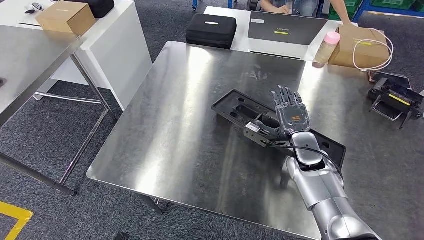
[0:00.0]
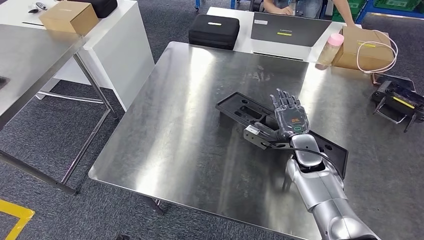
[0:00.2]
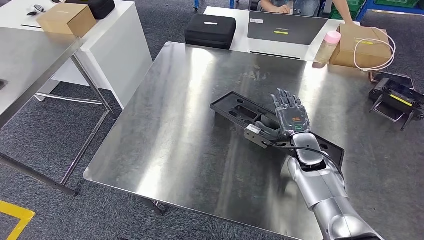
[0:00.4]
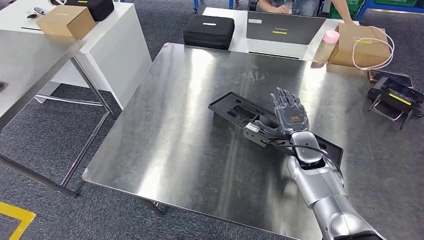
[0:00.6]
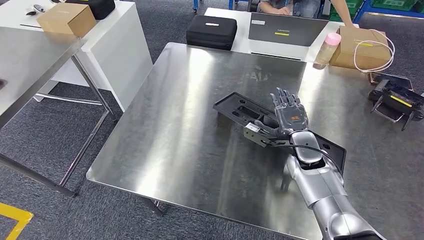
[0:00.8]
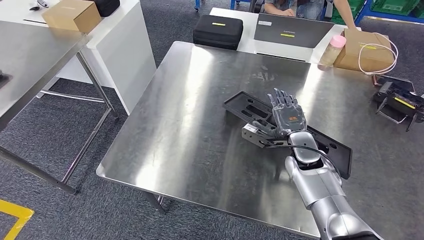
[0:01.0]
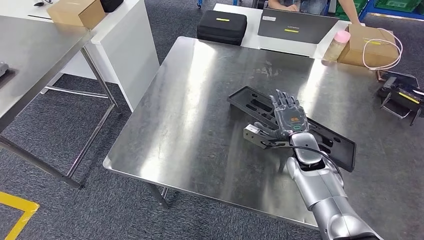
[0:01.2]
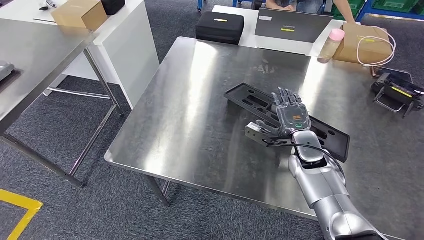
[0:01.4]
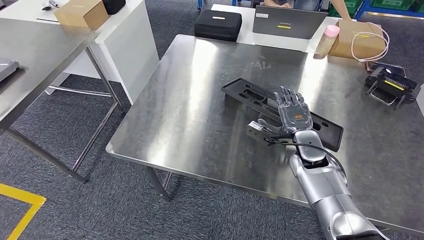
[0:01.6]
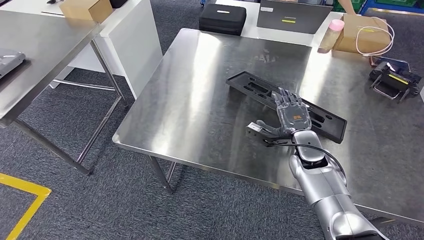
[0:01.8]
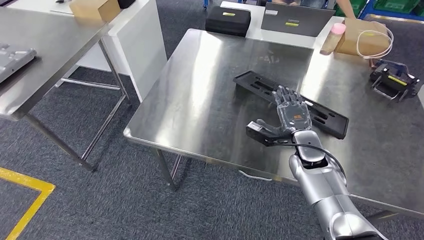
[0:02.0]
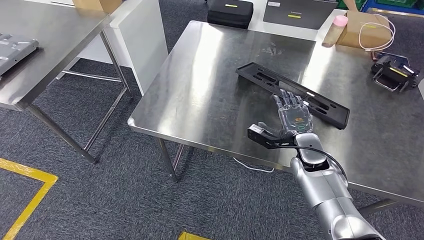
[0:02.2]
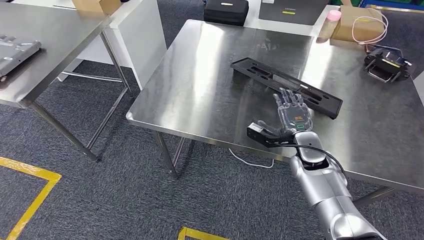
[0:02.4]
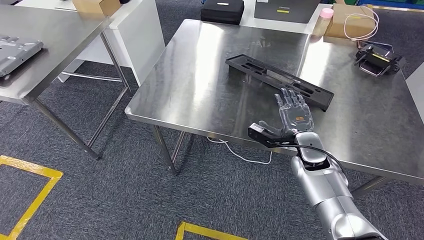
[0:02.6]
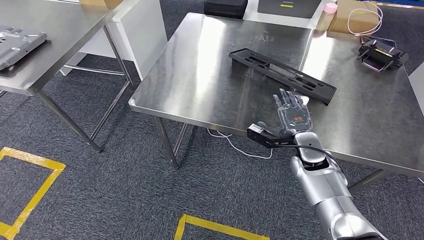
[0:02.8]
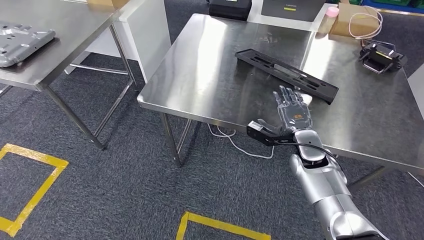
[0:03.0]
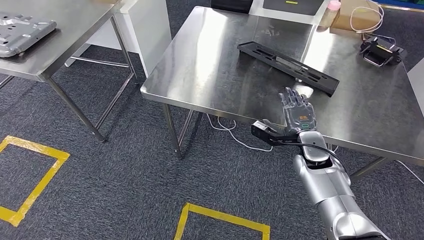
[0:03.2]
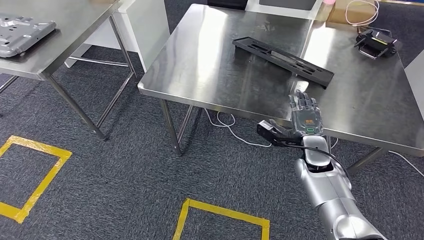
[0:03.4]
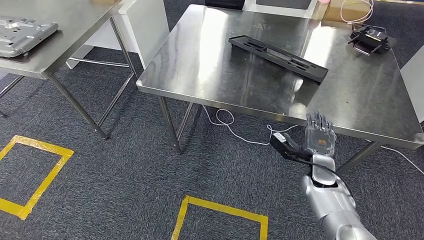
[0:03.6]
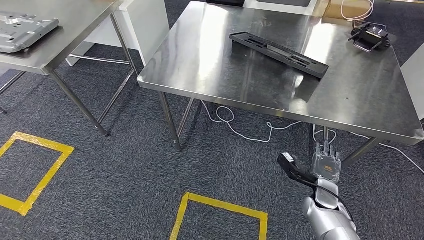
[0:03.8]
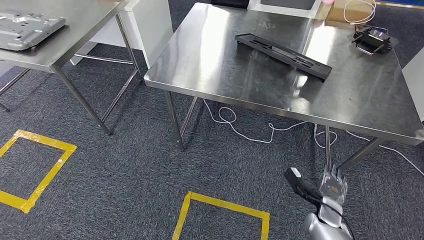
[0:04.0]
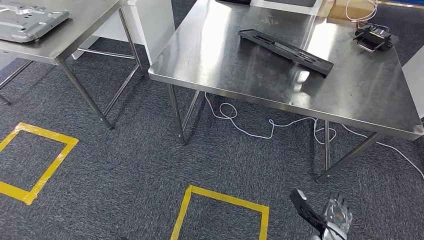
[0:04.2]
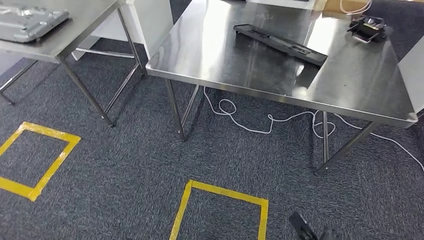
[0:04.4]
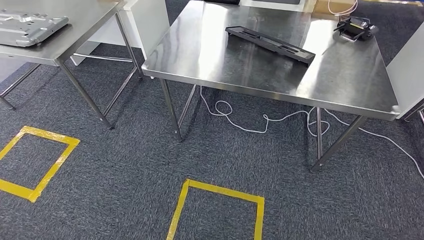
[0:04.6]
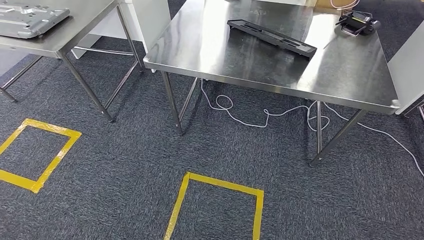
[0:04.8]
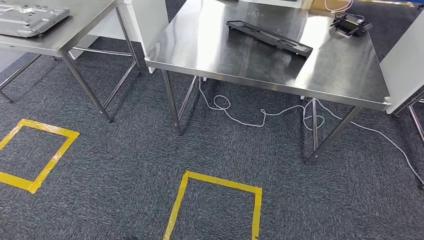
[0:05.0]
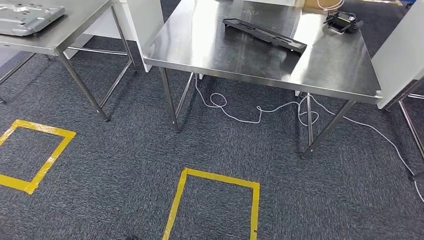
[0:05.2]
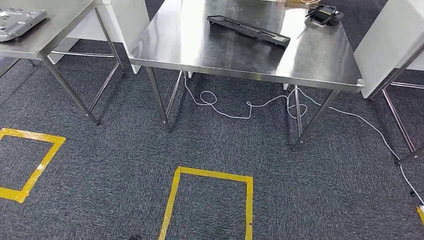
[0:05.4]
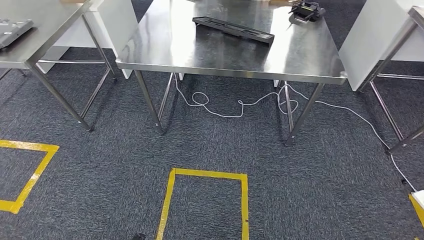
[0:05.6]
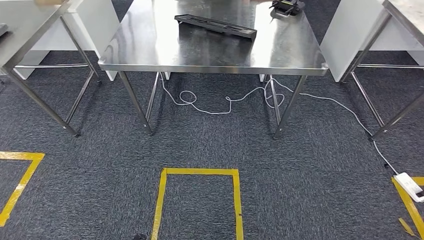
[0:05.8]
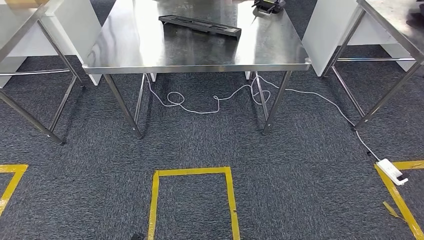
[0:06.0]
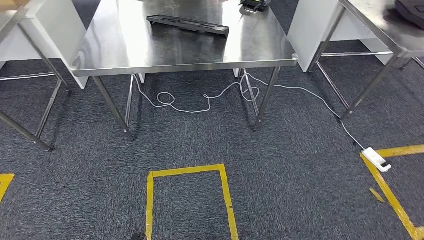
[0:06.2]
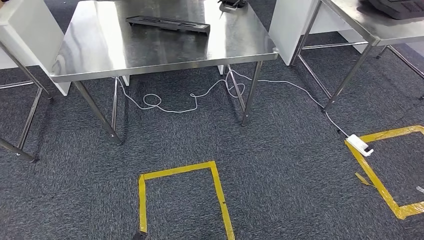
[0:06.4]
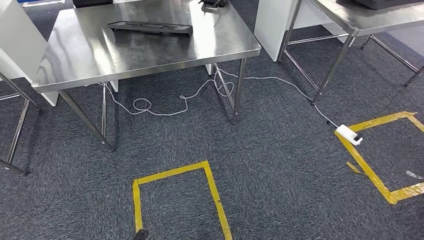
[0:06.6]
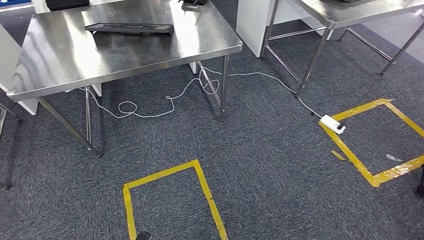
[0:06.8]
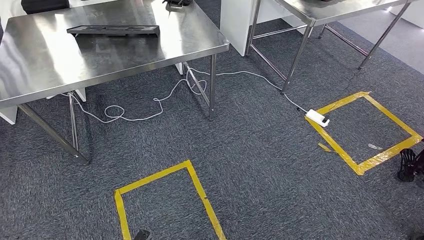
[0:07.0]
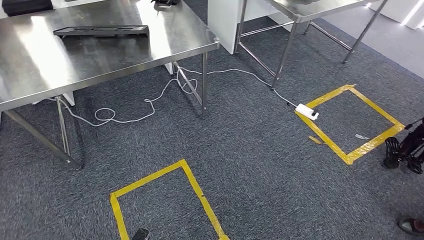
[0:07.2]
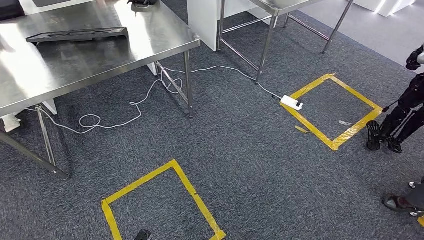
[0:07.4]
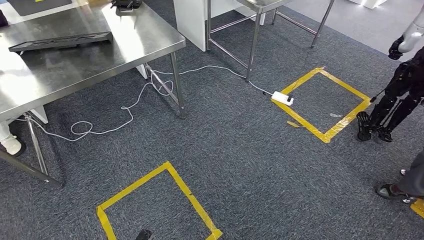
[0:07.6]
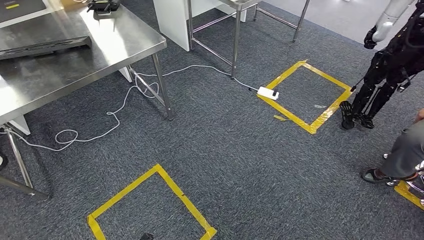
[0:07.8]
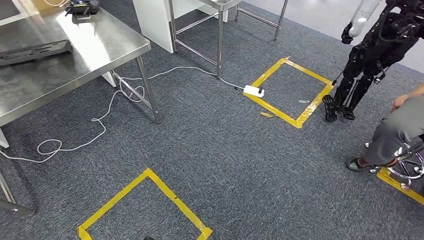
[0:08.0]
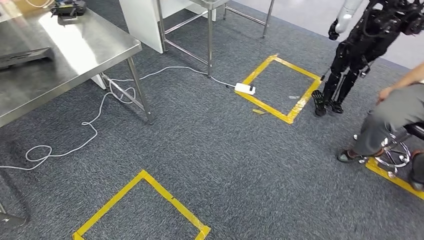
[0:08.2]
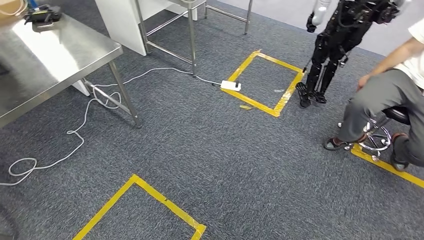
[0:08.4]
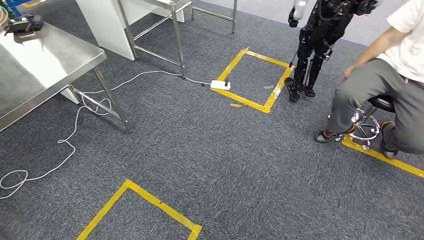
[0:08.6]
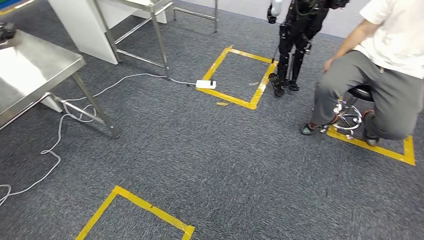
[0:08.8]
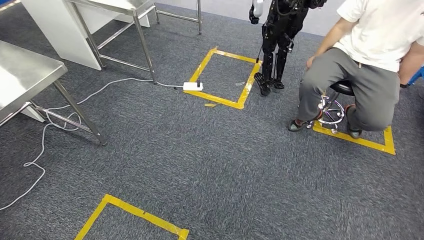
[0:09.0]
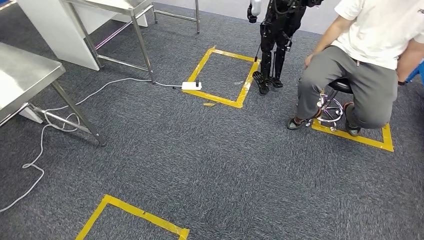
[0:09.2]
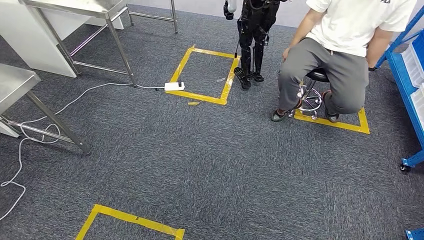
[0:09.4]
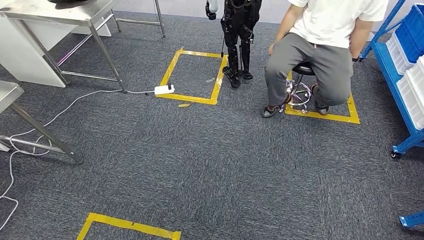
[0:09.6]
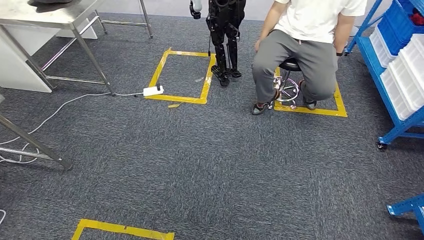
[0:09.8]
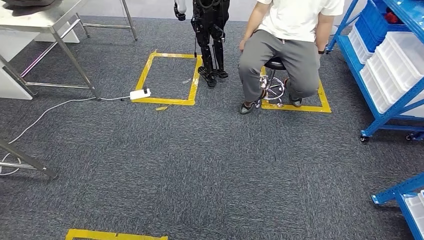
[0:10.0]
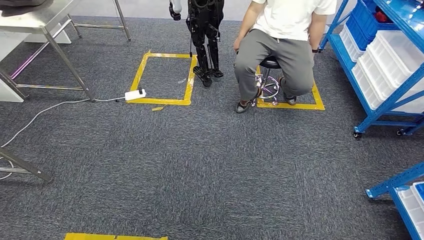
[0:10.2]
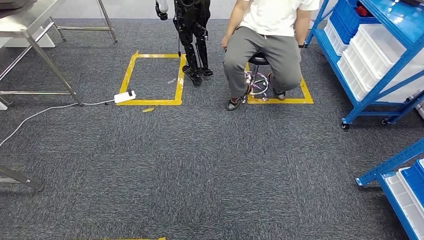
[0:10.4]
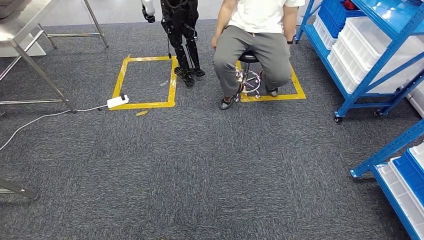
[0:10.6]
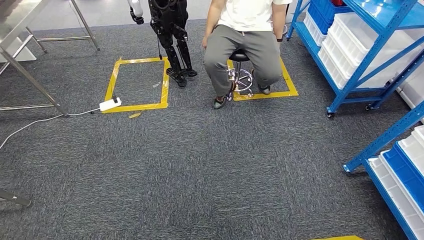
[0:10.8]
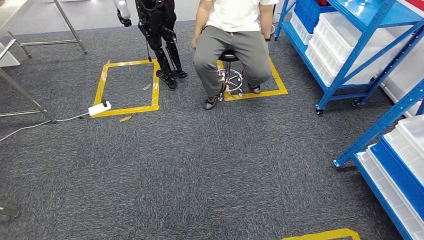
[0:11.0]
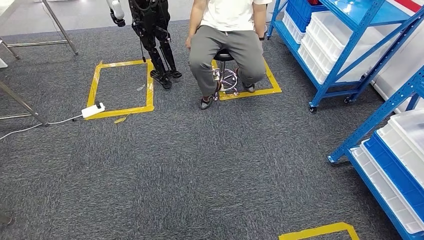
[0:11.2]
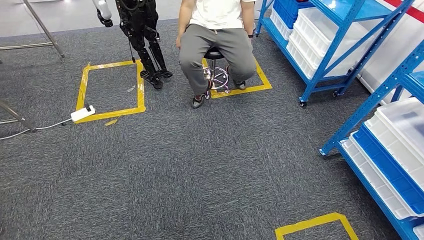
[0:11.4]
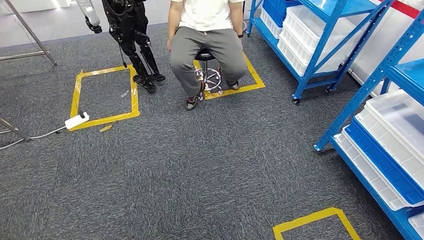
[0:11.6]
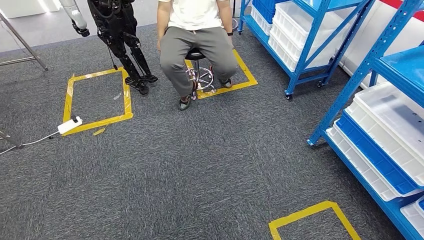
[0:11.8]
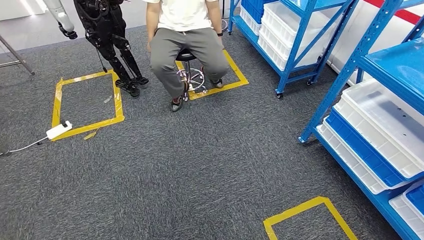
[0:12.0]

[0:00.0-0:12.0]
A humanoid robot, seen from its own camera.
Step, 0:00.0 to 0:03.4: Insert the large material into the corresponding hole on the workbench.

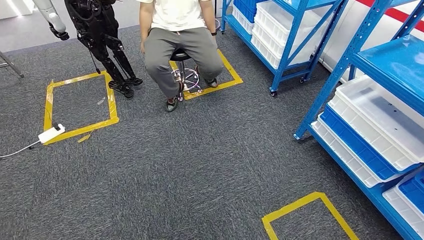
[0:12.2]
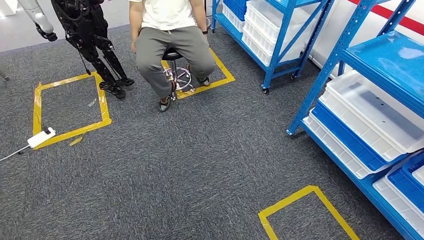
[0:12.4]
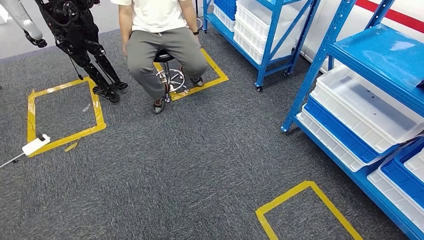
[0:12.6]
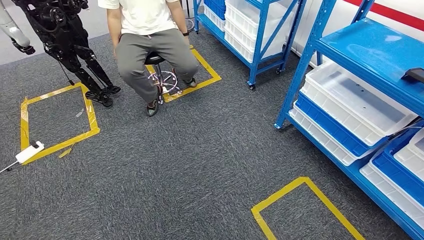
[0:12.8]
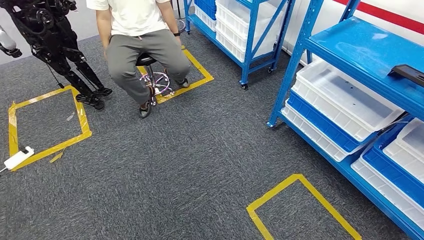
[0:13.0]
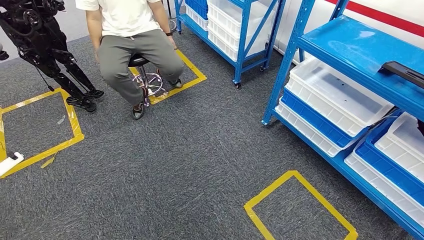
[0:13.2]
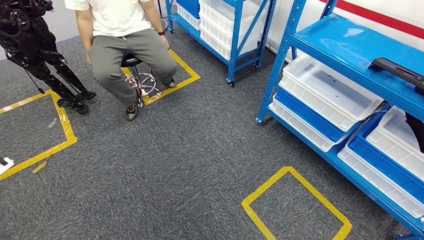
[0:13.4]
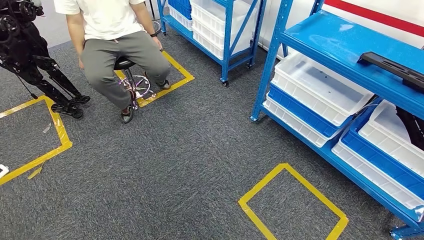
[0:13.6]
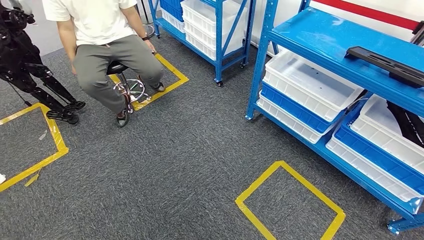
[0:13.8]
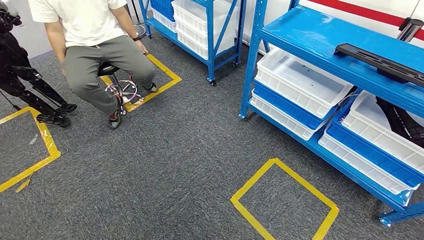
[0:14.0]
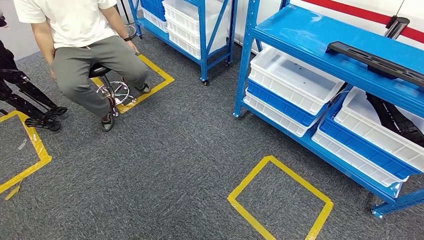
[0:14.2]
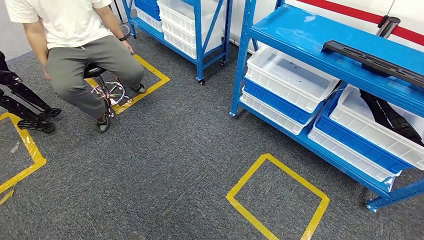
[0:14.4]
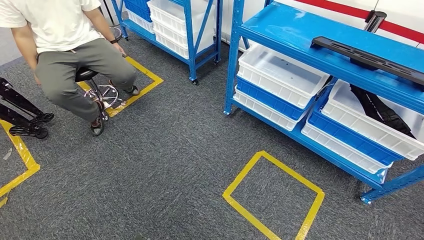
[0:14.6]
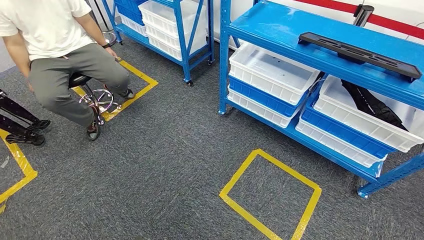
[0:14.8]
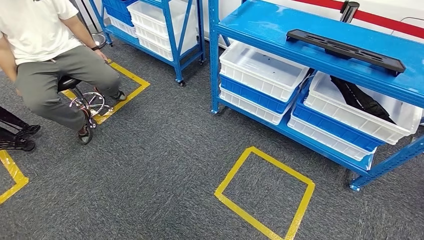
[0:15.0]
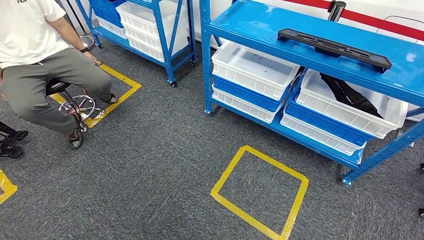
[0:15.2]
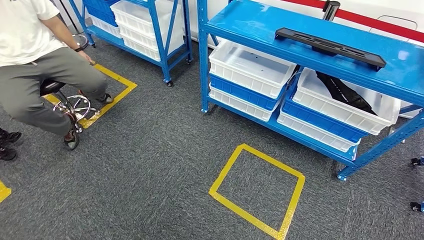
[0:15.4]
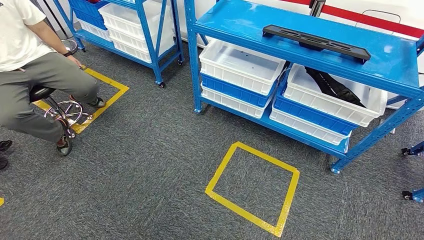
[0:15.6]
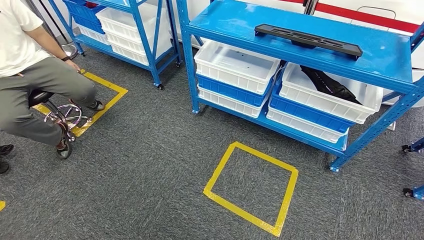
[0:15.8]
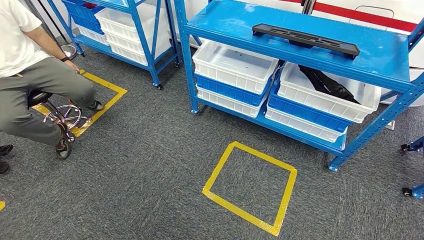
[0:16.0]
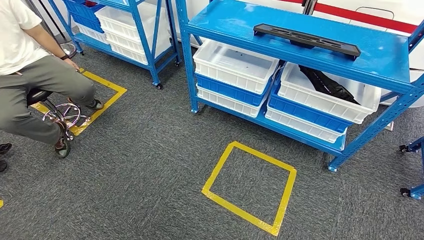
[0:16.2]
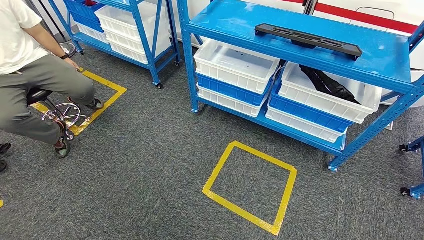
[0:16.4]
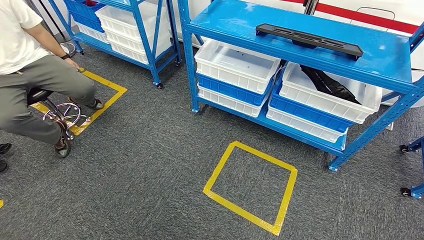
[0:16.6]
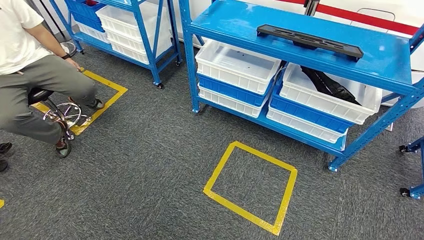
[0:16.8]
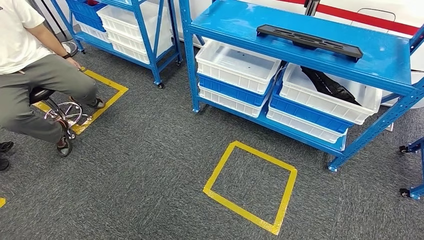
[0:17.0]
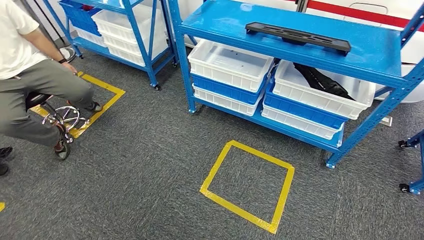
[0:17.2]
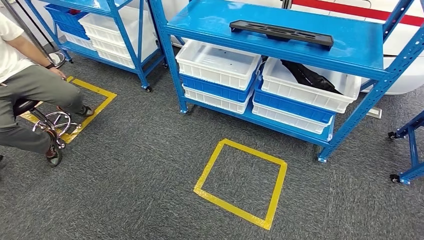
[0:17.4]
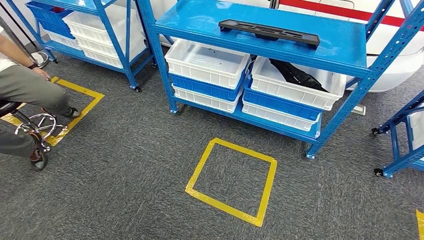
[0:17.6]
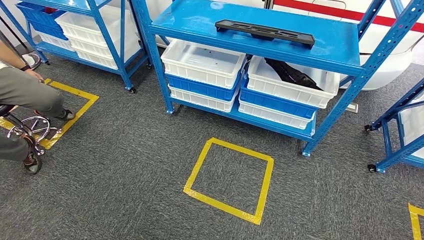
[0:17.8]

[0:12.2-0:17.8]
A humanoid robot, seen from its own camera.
Step, 0:12.2 to 0:17.8: Move to the initial position of the shelf.
